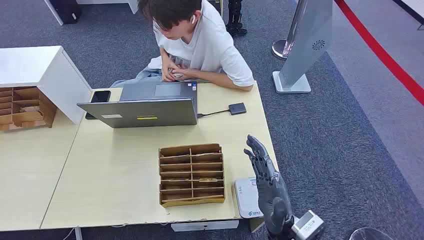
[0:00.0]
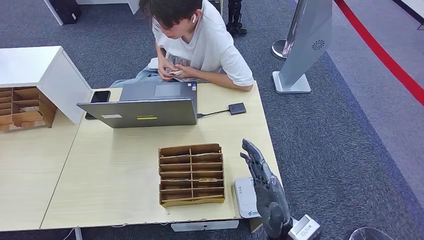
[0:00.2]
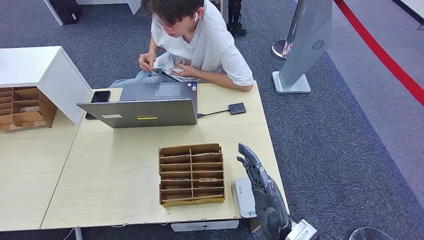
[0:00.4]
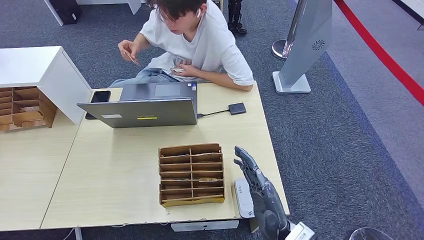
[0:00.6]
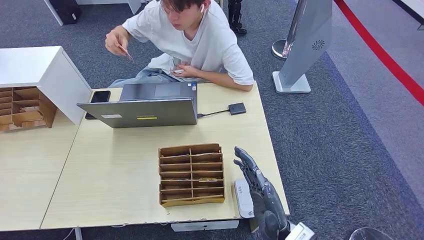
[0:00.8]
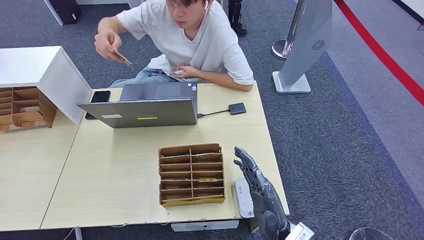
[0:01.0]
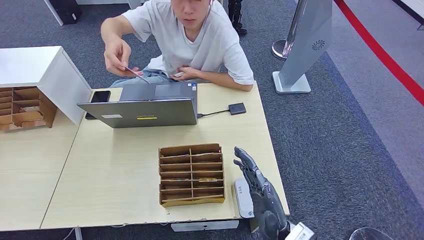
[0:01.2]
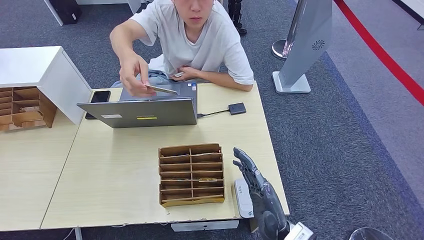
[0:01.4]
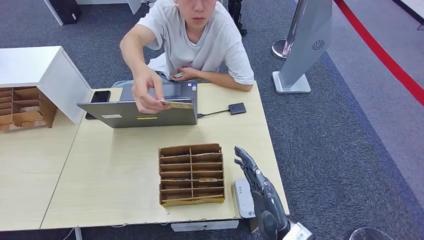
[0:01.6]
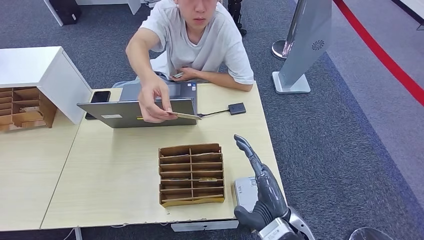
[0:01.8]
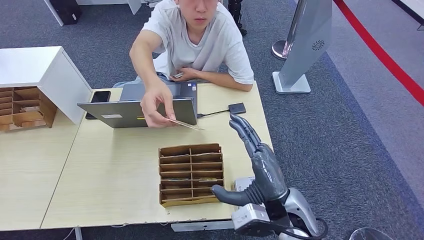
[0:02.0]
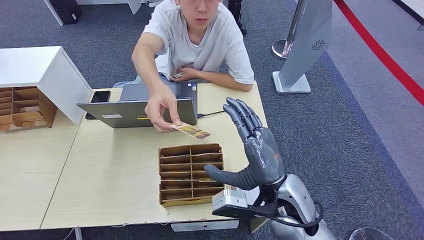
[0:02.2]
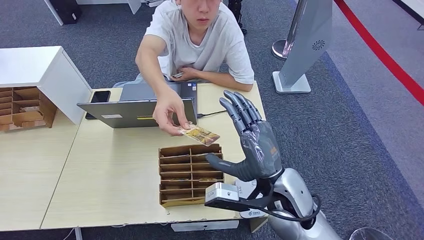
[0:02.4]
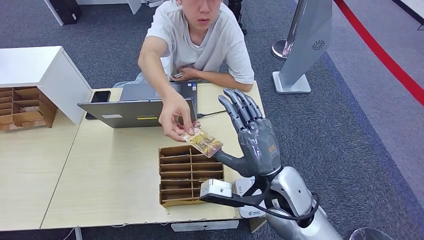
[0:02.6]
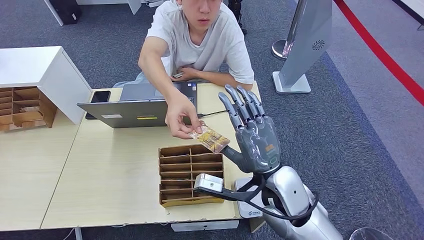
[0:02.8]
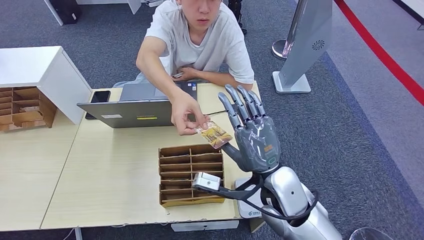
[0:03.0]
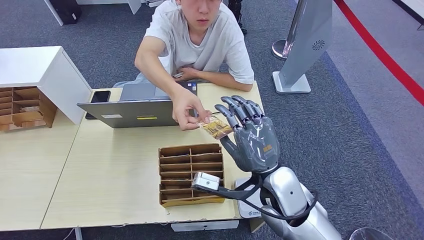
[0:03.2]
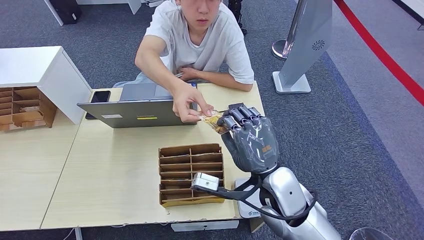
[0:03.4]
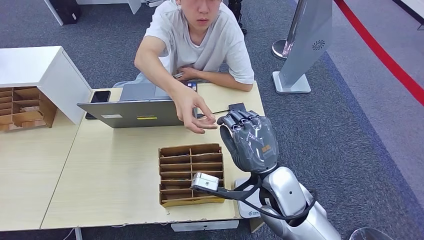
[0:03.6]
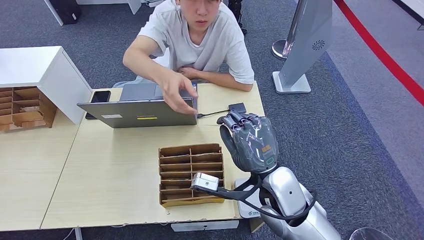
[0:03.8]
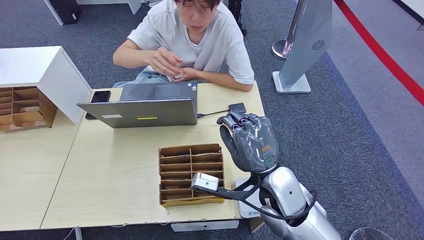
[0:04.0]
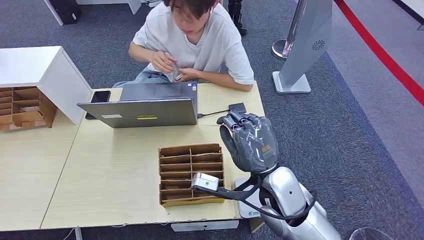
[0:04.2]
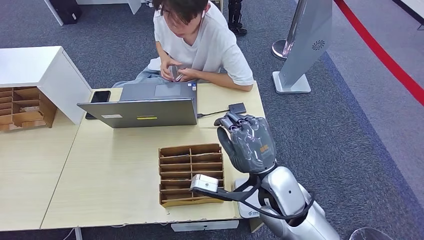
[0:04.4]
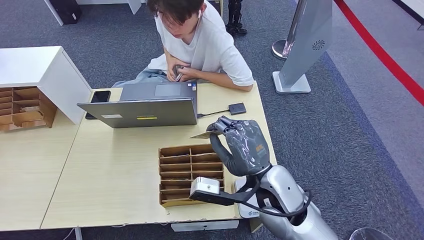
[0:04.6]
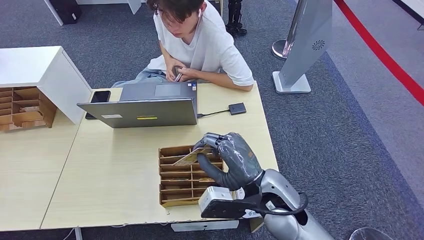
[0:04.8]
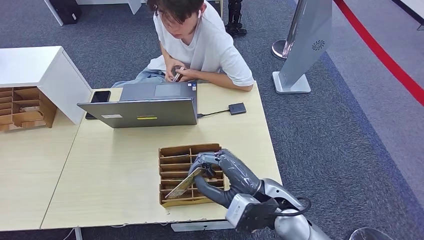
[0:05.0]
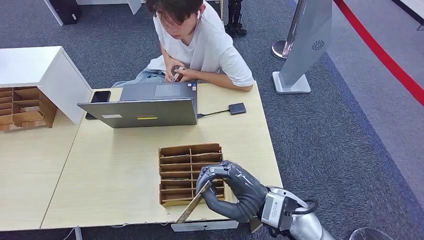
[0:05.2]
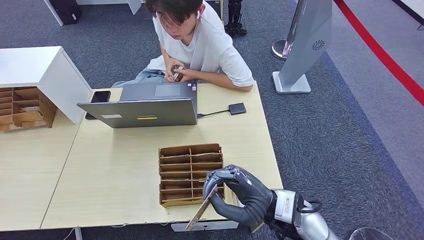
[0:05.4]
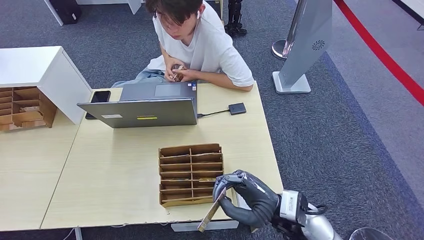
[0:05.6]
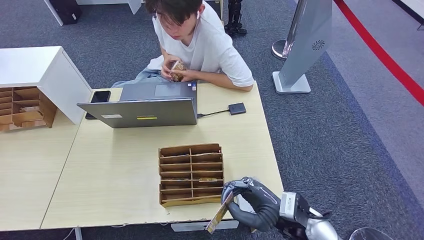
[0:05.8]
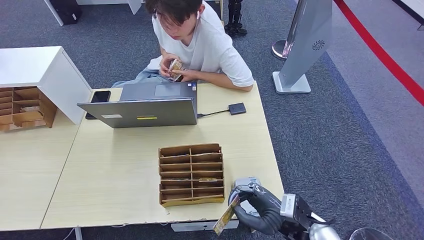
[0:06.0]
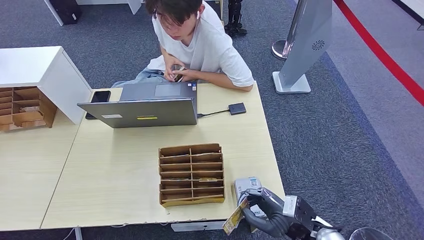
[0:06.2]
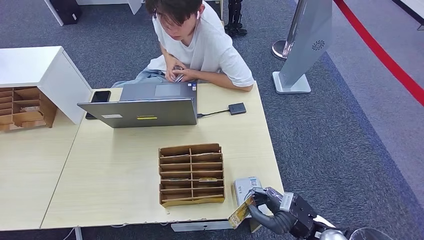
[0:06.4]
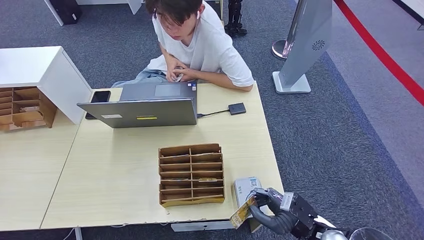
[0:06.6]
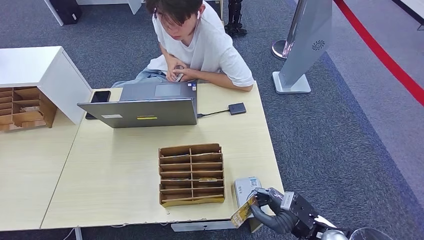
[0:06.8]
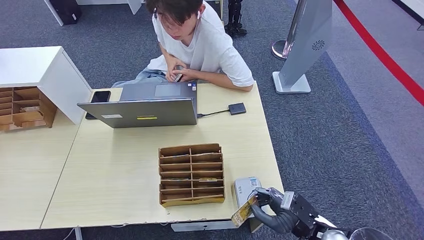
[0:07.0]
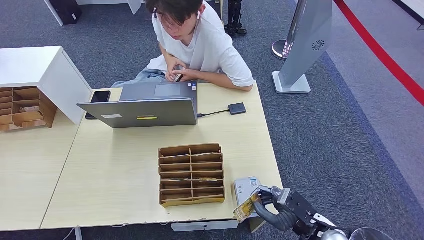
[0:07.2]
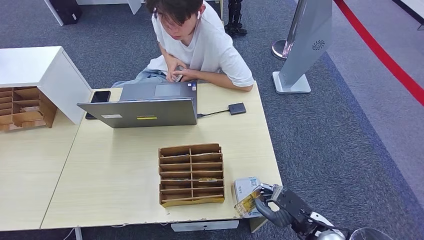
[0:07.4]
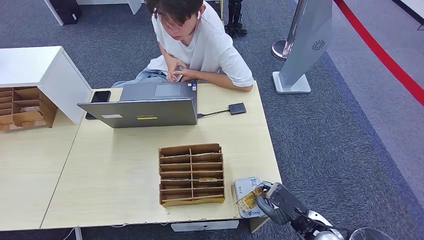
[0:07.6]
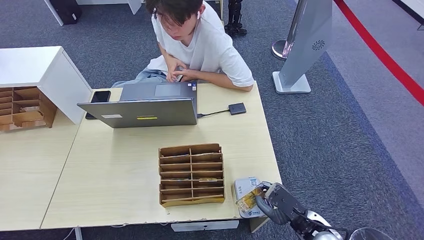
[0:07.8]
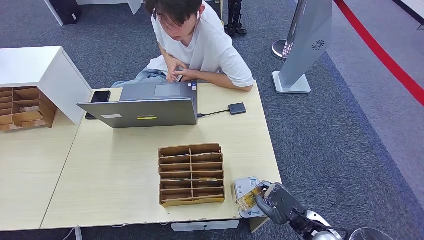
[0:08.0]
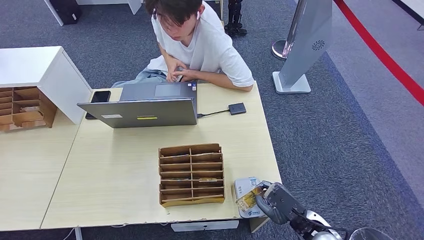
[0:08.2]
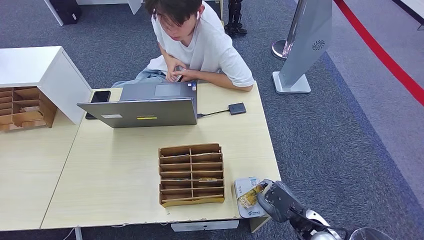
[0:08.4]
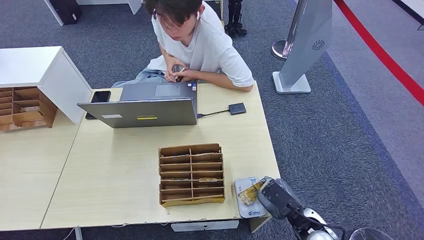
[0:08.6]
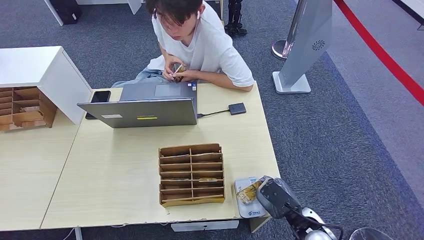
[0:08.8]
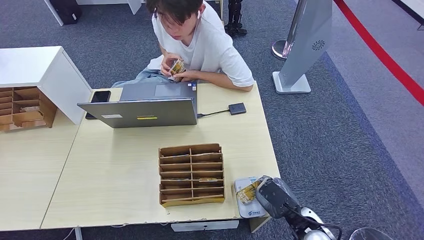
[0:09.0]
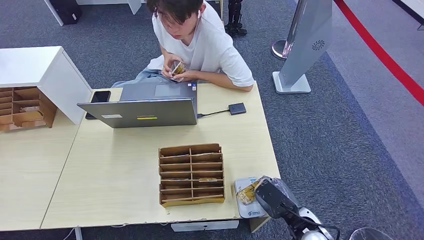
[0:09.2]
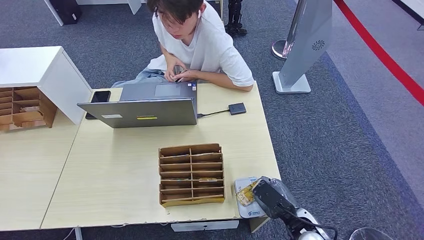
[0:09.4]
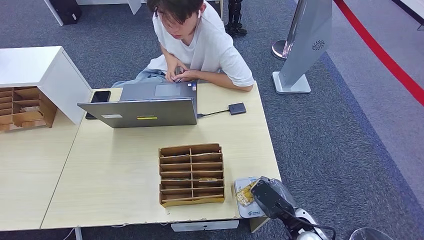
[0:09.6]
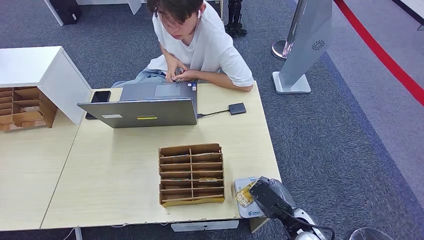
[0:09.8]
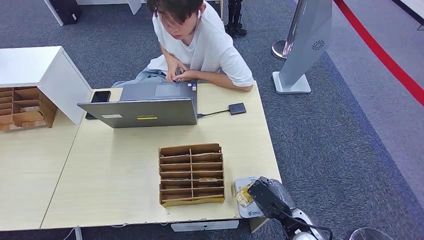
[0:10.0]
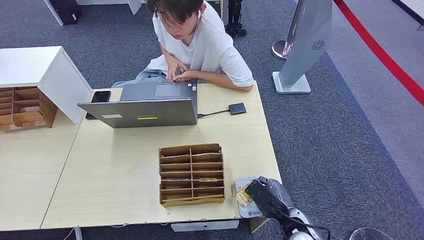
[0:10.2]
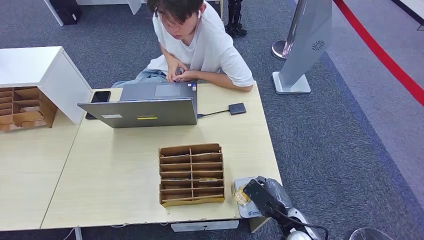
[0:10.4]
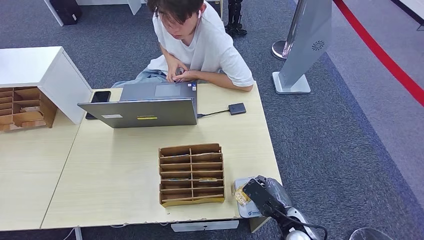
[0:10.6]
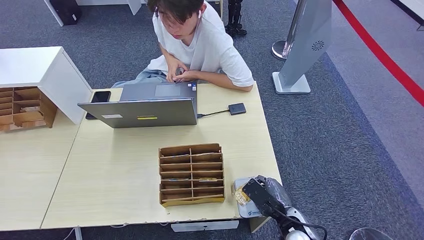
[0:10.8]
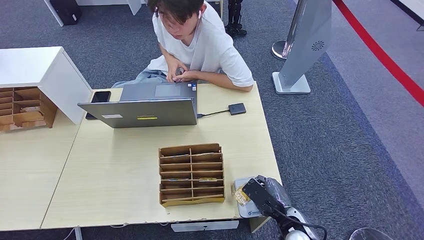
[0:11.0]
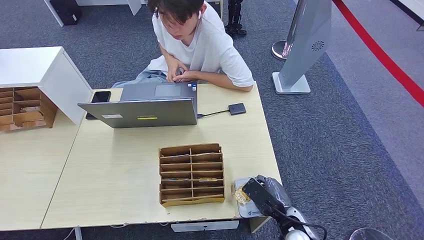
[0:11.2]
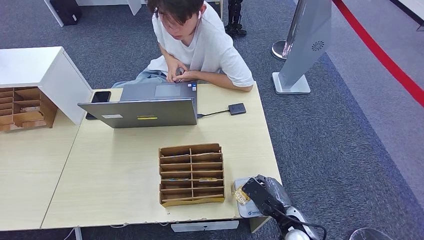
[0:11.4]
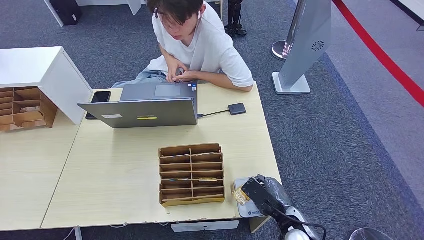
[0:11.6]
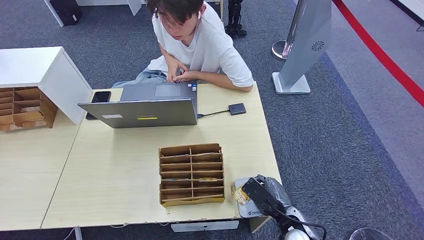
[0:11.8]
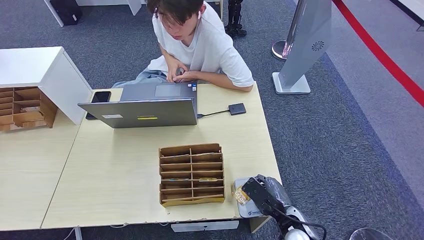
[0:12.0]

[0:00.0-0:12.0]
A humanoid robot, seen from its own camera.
Step, 0.0 to 3.8 s: Take the ID card from the person's hand.
Step, 4.0 to 10.4 s: Place the ID card on the card reader.
1.6 to 3.0 s: The right hand goes roughly 15 cm forward and upward.
3.0 to 4.4 s: Neither hand changes place.
4.4 to 6.0 s: The right hand moves downward, to the right and backward, approximately 15 cm.
6.0 to 7.6 s: The right hand moves to the right, some 5 cm.
7.6 to 9.0 s: The hands make only small movements.
9.0 to 10.4 s: The hands move only a little.
10.4 to 12.0 s: Neither hand changes place.

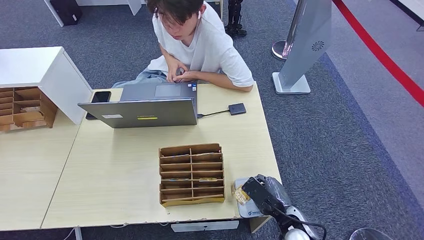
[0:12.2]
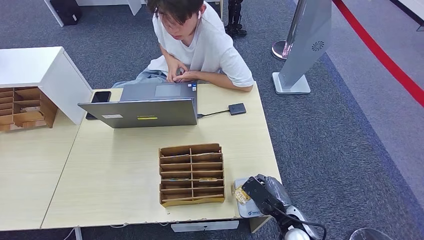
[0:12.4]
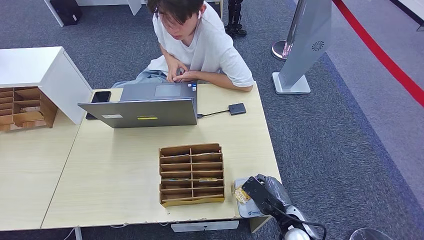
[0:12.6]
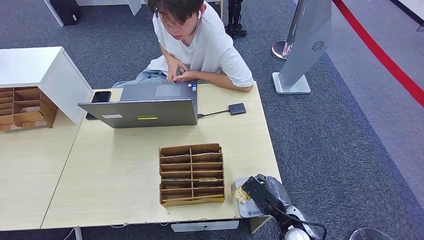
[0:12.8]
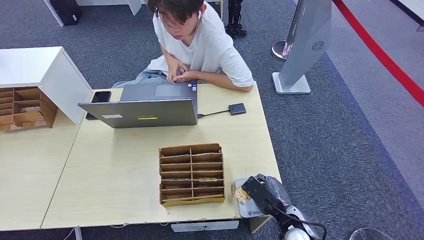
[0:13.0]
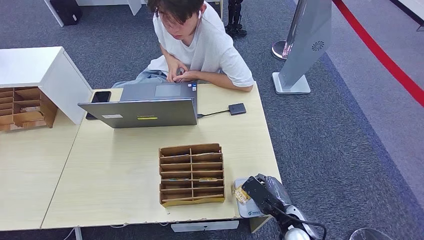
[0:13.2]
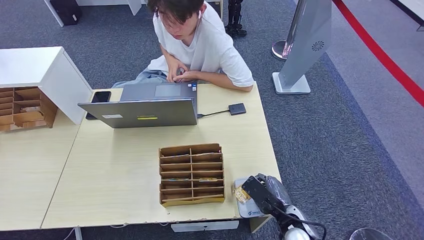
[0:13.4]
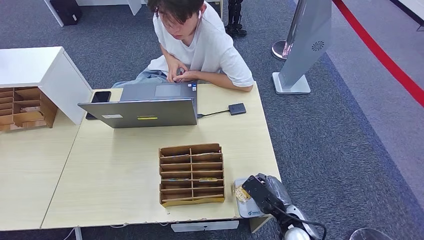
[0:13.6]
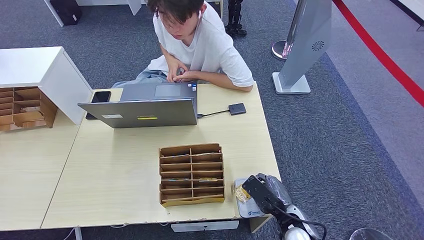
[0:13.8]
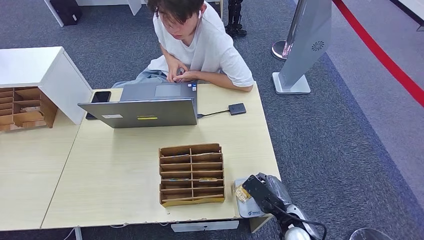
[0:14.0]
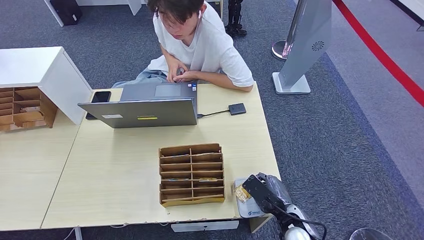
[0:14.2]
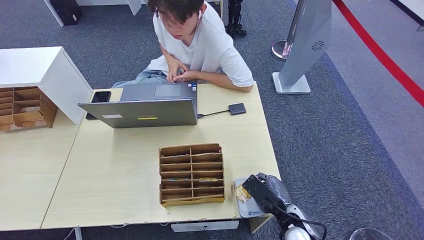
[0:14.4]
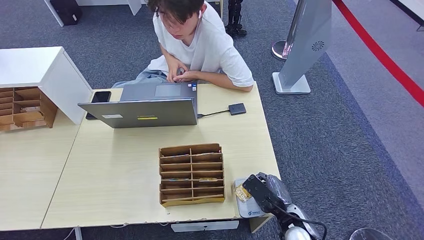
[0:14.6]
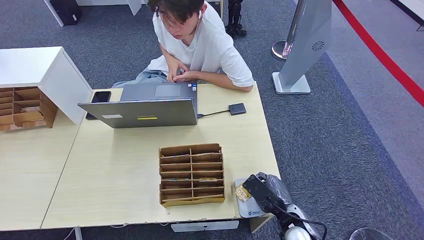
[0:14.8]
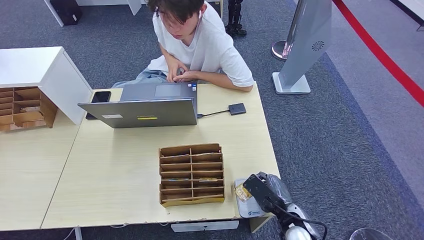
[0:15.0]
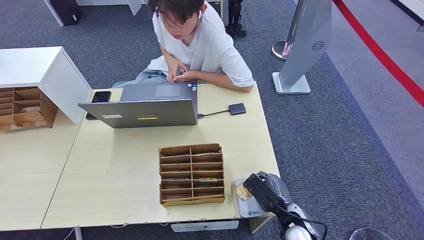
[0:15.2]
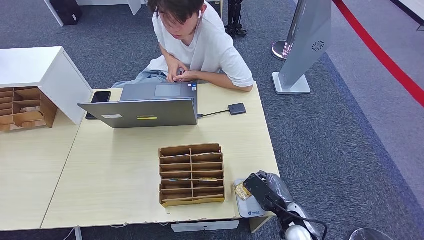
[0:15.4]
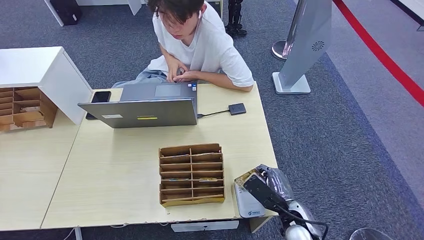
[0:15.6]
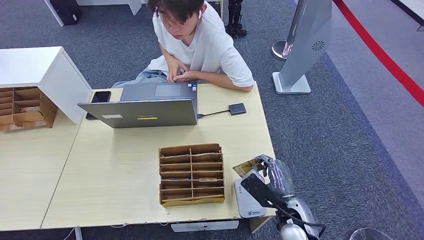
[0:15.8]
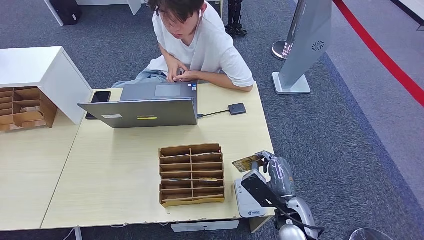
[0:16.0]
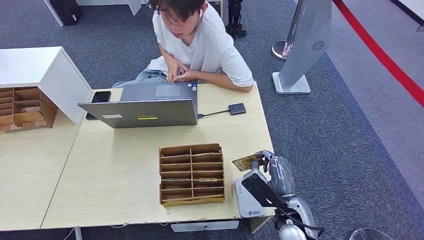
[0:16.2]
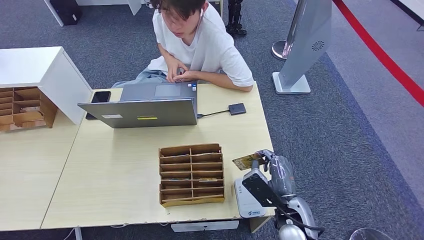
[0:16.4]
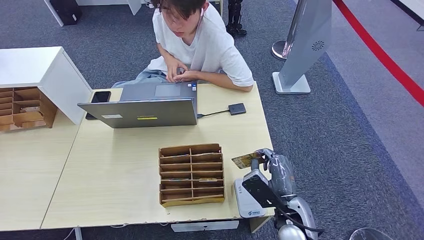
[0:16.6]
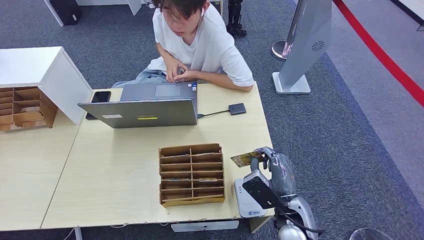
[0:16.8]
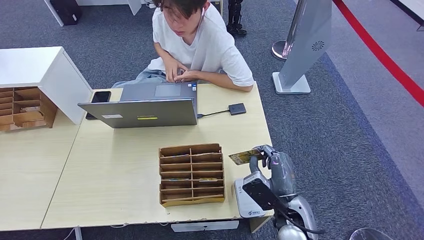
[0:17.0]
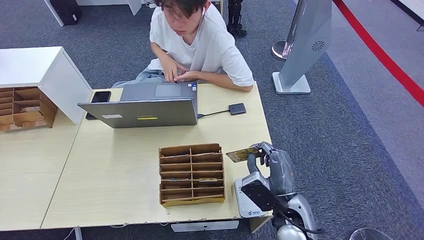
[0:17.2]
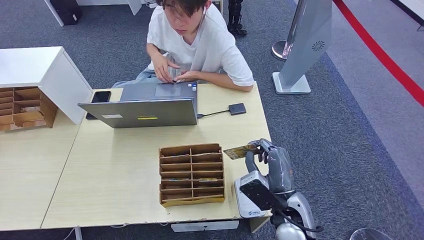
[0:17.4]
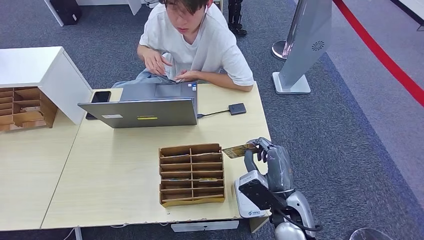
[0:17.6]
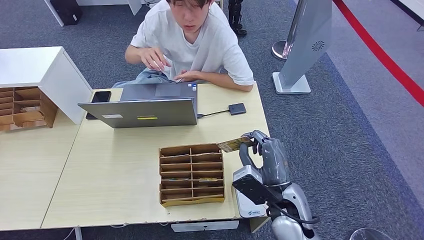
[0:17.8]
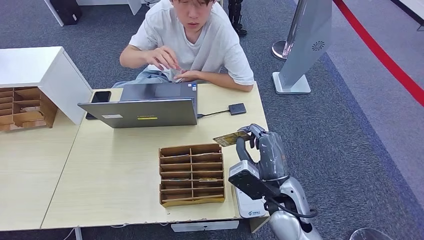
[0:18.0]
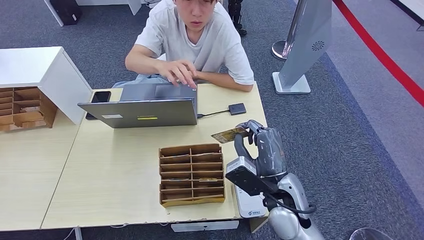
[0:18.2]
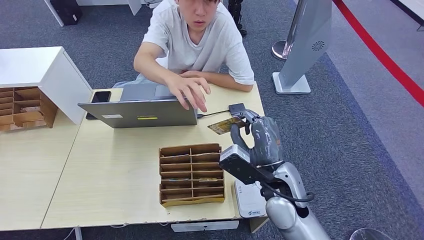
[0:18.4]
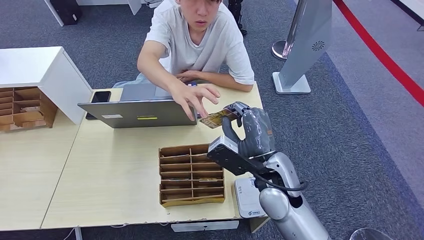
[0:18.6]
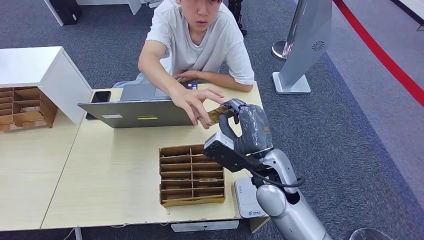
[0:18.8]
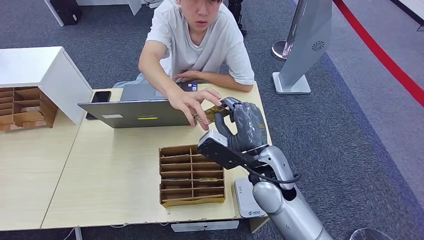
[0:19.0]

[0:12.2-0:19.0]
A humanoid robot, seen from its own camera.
Step, 12.2 to 19.0 s: Hand the ID card to the person.
12.2 to 15.0 s: Both hands stay about where they are.
15.0 to 16.2 s: The right hand ends up about 5 cm from where it was.
16.2 to 17.6 s: The right hand ends up some 5 cm from where it was.
17.6 to 19.0 s: The right hand heads upward, forward and to the left, covering roughly 10 cm.
